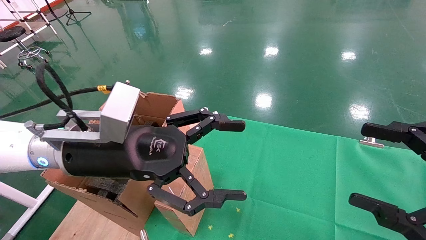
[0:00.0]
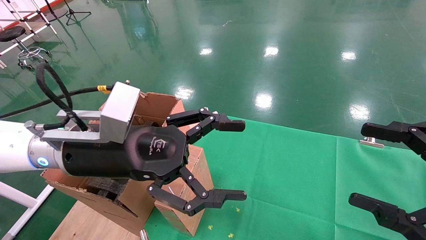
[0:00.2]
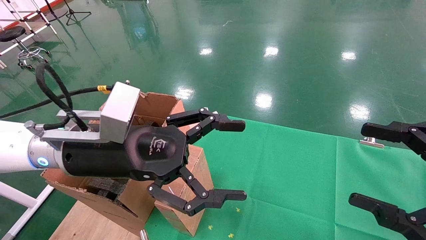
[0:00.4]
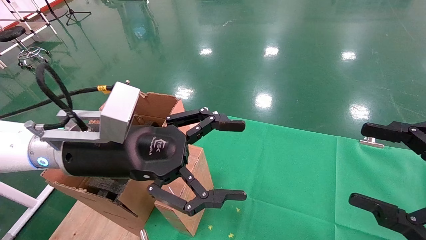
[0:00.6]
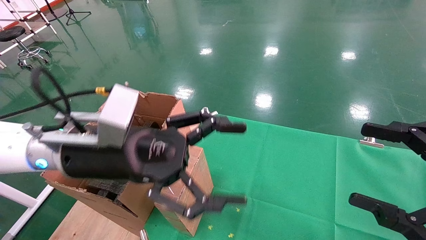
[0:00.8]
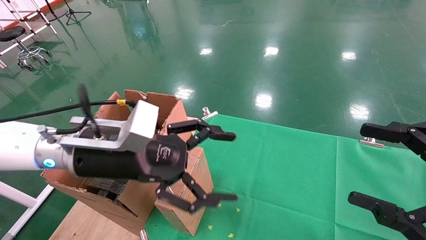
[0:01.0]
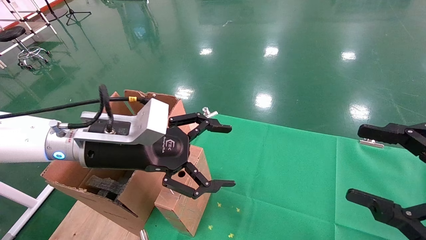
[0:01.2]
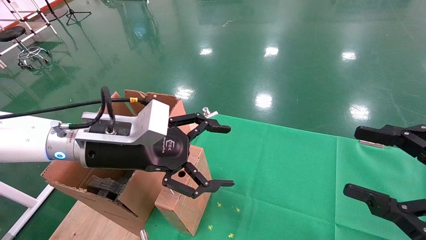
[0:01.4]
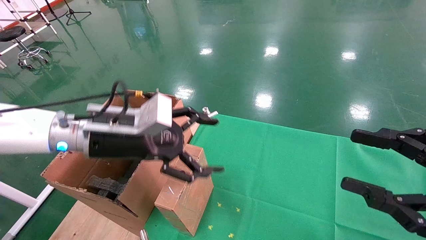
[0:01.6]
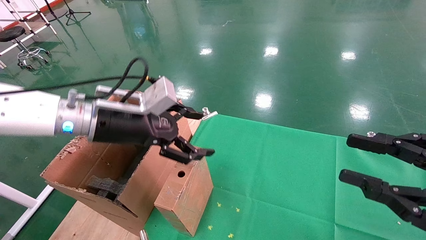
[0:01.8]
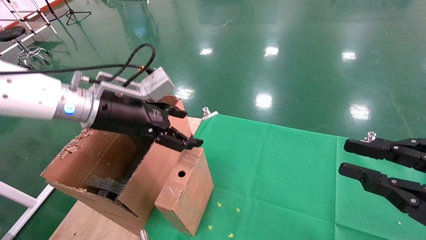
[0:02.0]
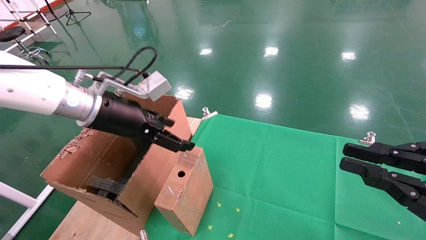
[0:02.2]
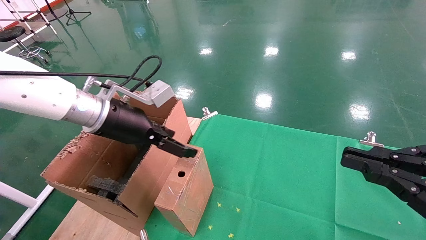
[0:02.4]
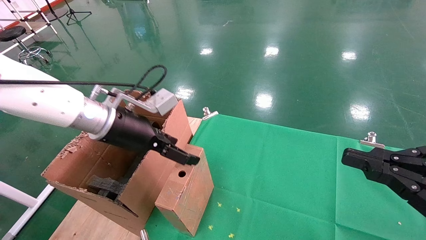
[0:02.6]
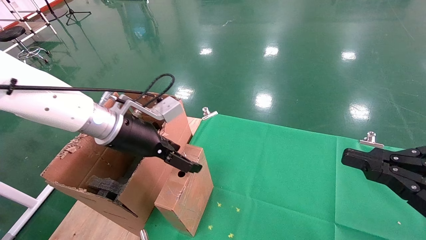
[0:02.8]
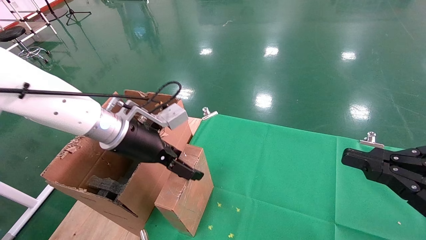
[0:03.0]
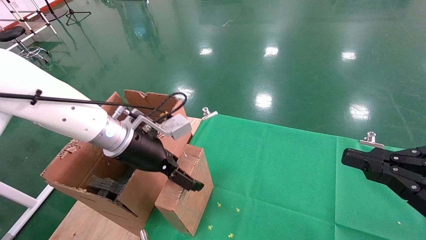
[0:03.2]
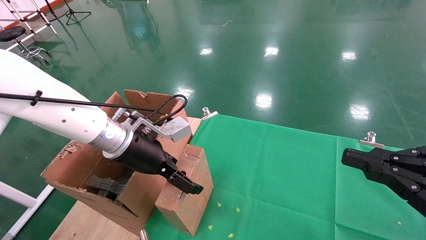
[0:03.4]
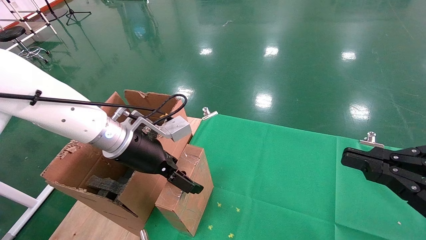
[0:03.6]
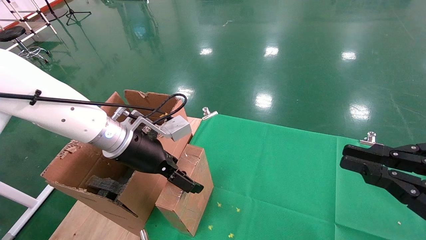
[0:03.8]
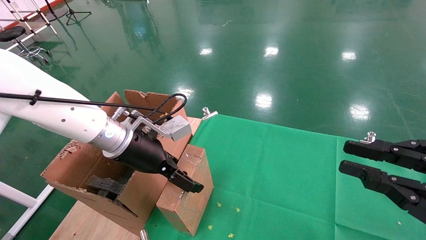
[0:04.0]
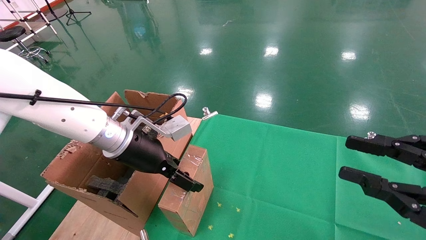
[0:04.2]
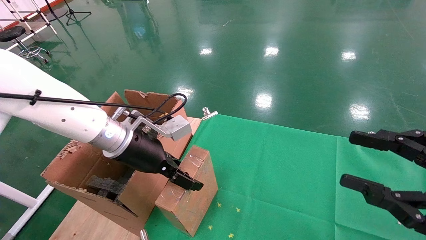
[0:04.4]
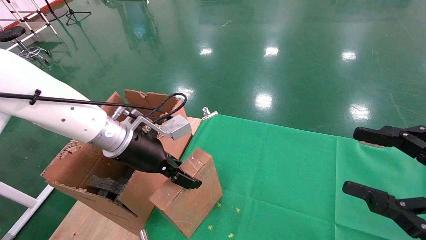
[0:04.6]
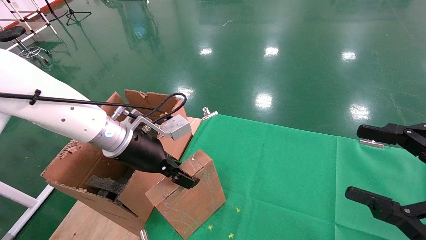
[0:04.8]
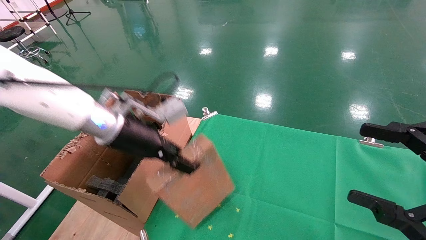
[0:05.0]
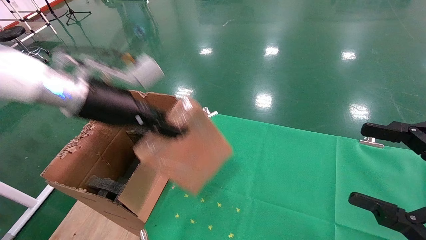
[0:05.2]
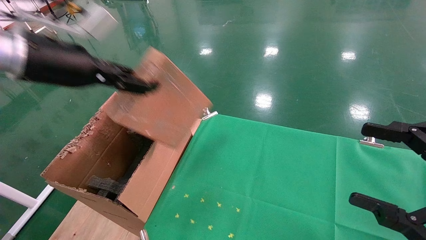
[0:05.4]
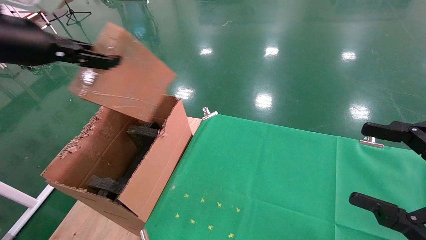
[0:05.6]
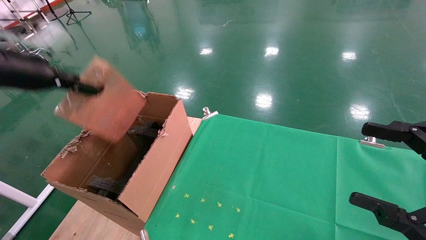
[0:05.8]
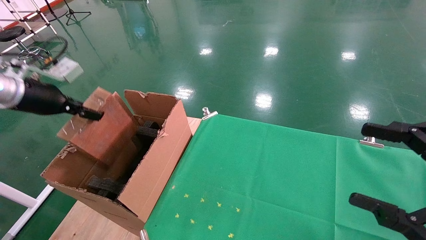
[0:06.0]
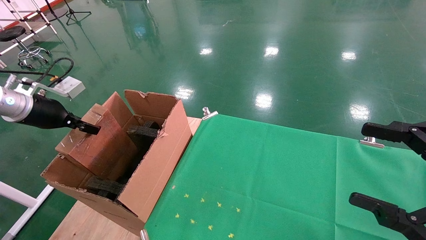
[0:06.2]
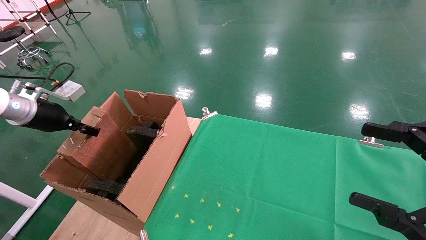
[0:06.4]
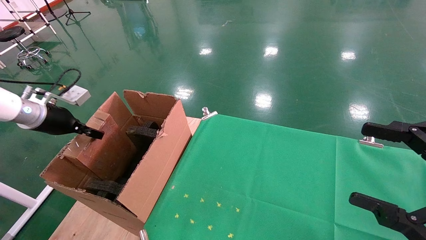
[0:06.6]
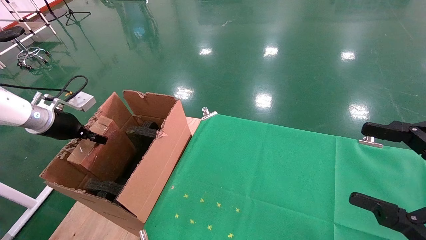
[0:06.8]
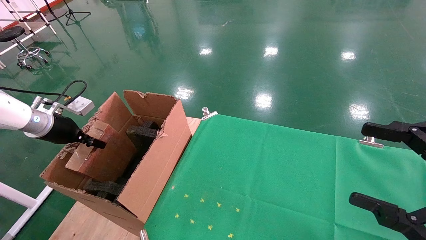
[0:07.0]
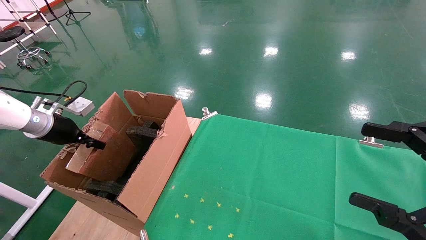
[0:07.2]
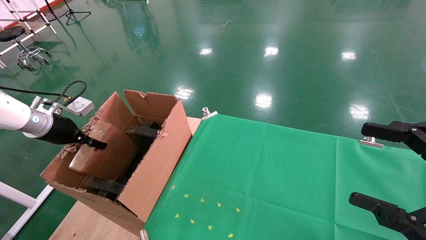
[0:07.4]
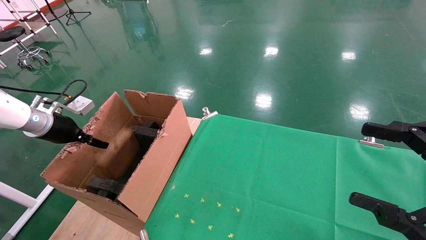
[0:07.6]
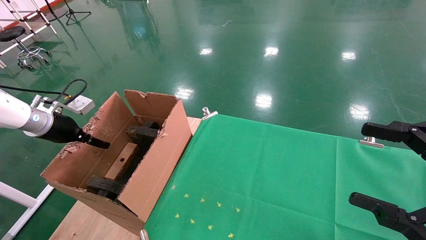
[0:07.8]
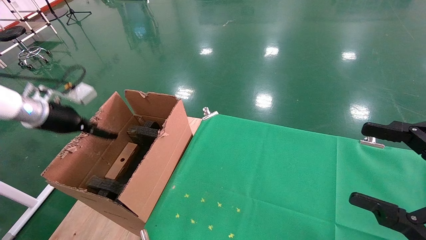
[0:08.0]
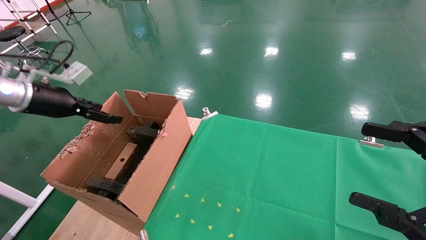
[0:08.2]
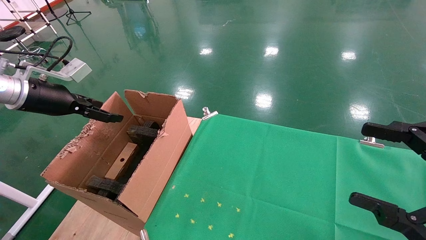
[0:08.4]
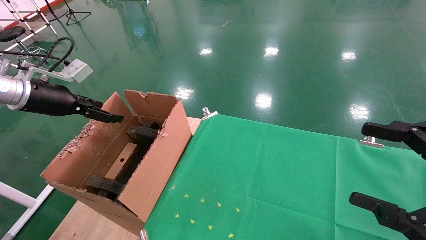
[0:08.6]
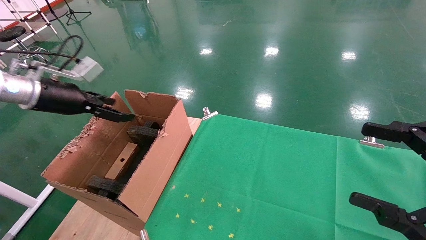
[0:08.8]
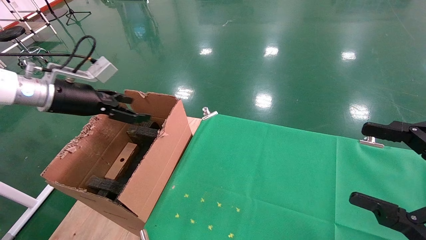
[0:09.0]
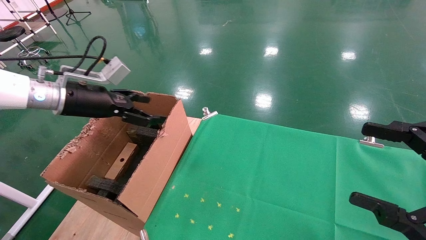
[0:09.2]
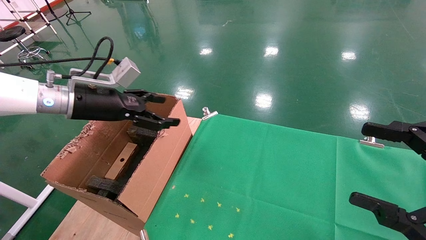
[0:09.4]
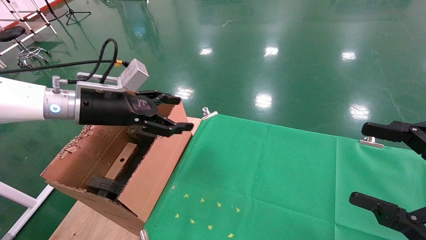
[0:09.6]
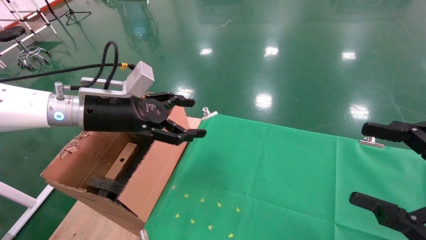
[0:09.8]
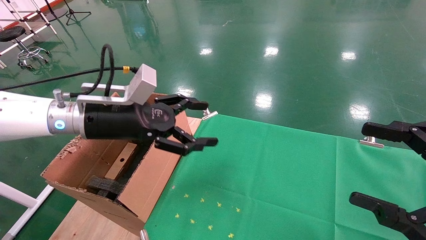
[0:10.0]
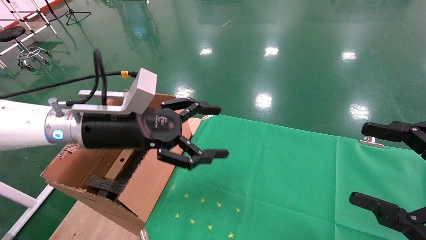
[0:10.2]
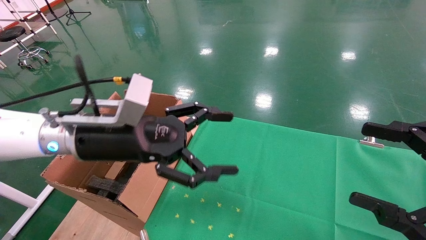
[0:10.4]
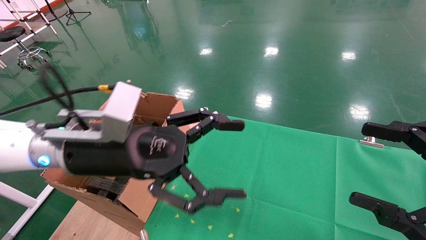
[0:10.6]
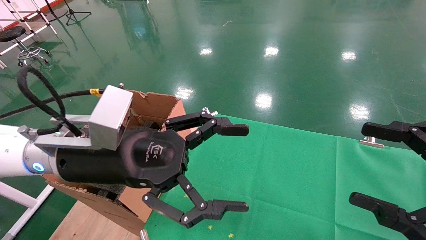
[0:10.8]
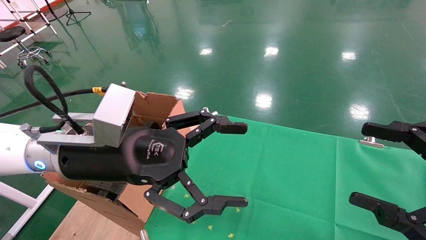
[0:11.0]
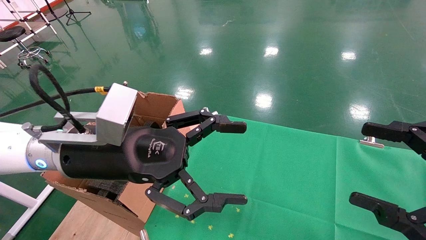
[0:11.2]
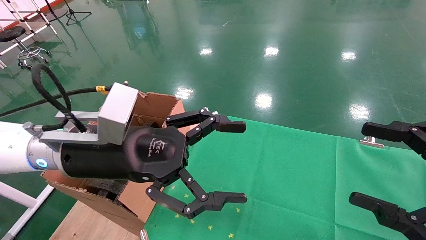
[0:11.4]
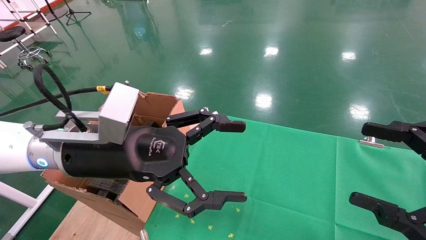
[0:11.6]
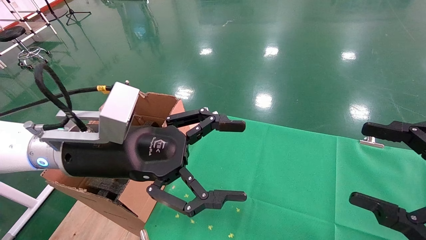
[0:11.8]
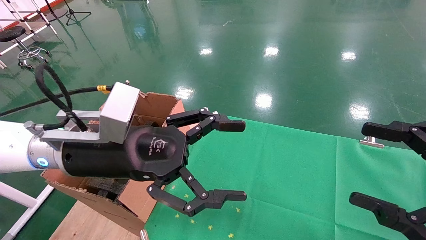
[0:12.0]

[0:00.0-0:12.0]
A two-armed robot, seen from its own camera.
Task of the whole recording: using a robotic arm to pick up a cardboard box and palace it the carton.
Step, 0:01.2 to 0:04.6: Pick up the mouse and the power cord paper box.
Step, 0:04.8 to 0:07.8: Place the mouse and the power cord paper box into the container.
0:00.0 to 0:01.6: The left gripper shifts about 5 cm forward.
0:01.6 to 0:03.0: The right gripper closes its fingers.
0:03.0 to 0:04.4: The right gripper opens its fingers.
0:04.4 to 0:06.0: The left gripper is displaced to the left by roughly 25 cm, and closes. The right gripper opens its fingers.
0:06.0 to 0:07.6: The left gripper heads downward, covering approximately 10 cm.
0:07.6 to 0:09.0: The left gripper is displaced to the right and upward by roughly 10 cm, and opens up.
0:09.0 to 0:10.4: The left gripper is displaced to the right and backward by approximately 20 cm.
0:10.4 to 0:12.0: The grippers move only a little.

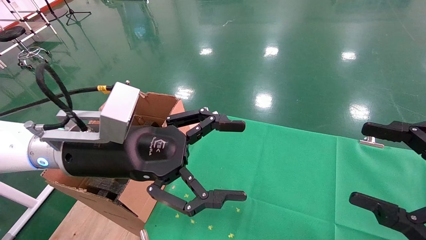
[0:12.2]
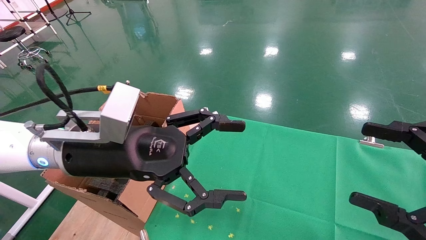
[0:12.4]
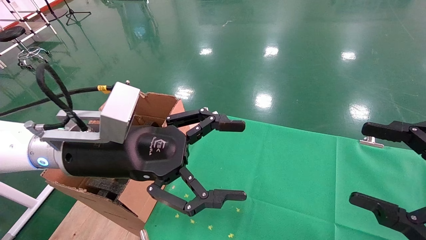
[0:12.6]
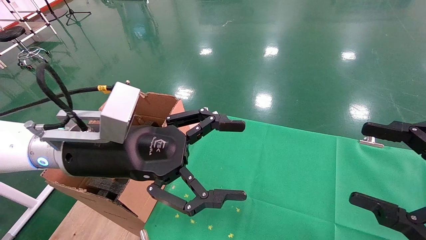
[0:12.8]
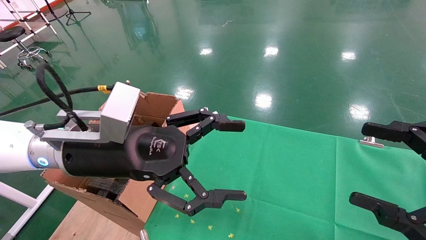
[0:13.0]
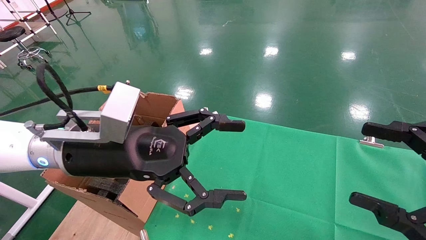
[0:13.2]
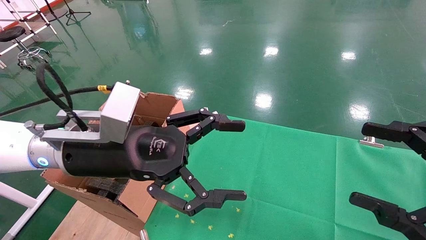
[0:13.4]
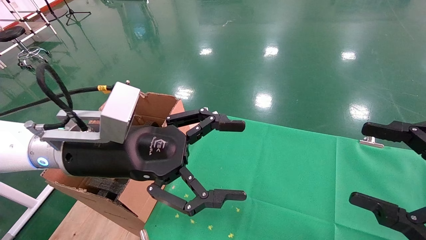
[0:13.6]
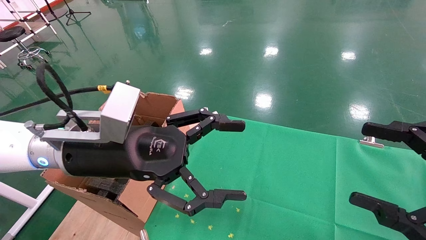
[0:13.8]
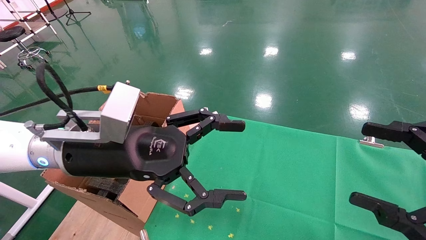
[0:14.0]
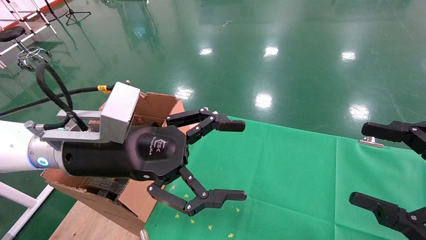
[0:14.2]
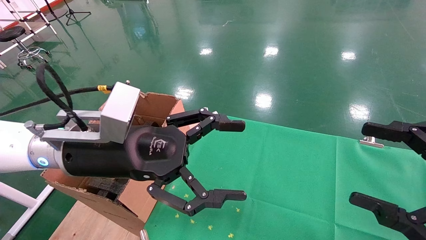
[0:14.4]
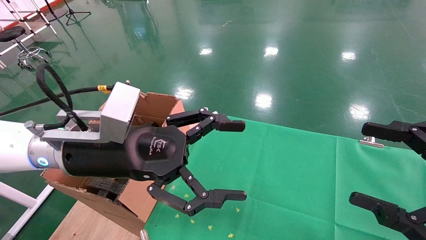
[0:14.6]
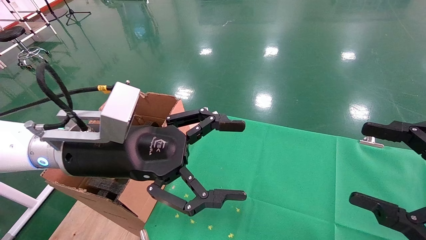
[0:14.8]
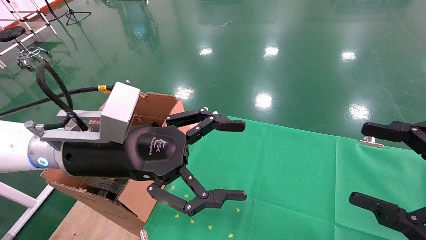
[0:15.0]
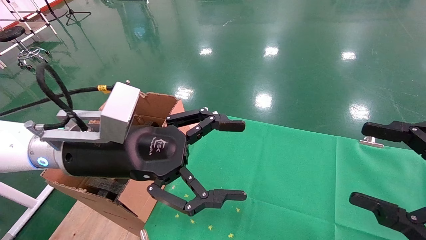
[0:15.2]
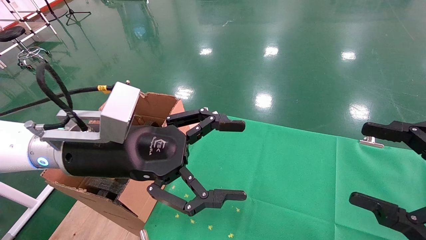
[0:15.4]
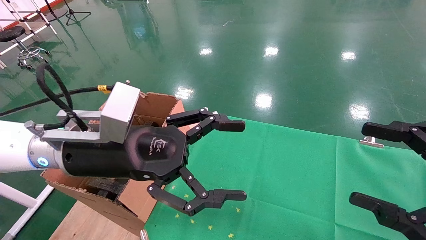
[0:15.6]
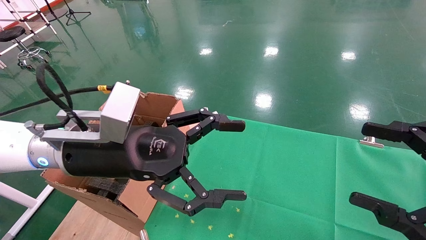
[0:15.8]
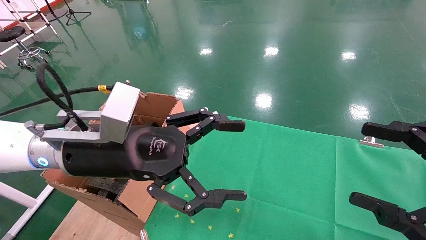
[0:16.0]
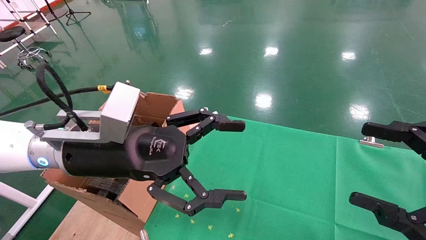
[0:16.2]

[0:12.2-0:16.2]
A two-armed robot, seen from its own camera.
Task of the whole recording: using a robotic arm to pick up a cardboard box and palace it the carton.
0:12.2 to 0:16.2: Neither gripper changes place.
